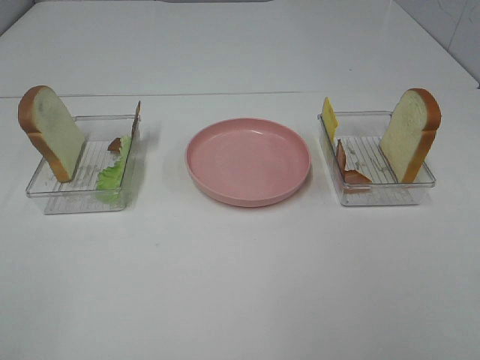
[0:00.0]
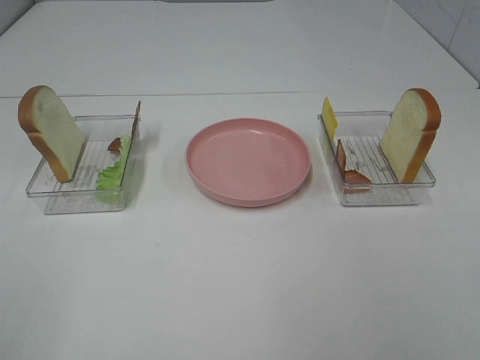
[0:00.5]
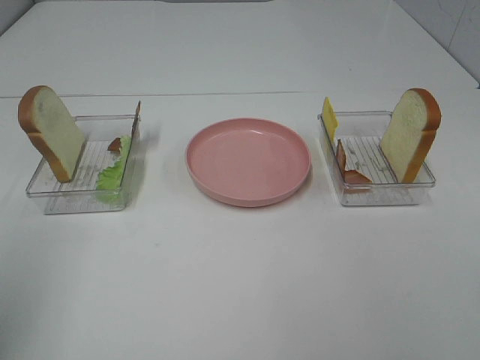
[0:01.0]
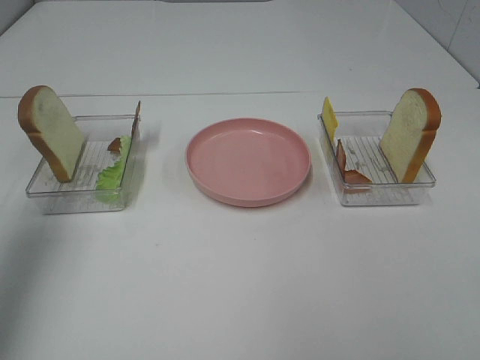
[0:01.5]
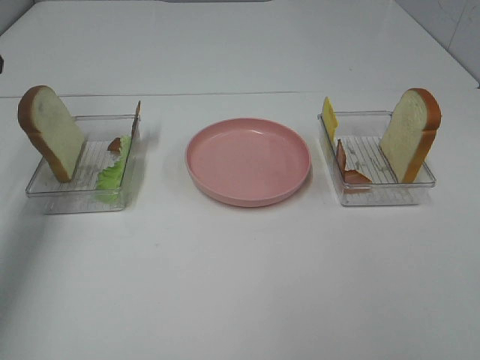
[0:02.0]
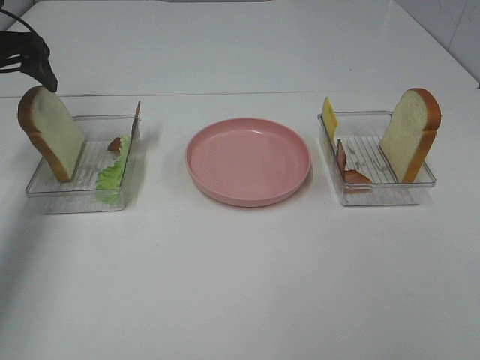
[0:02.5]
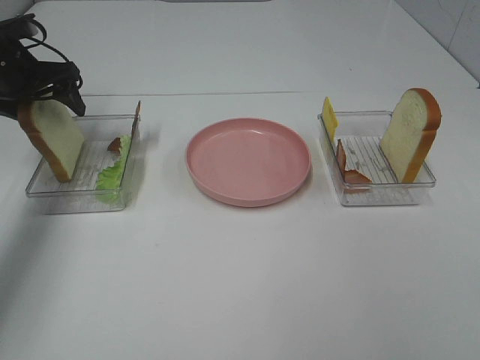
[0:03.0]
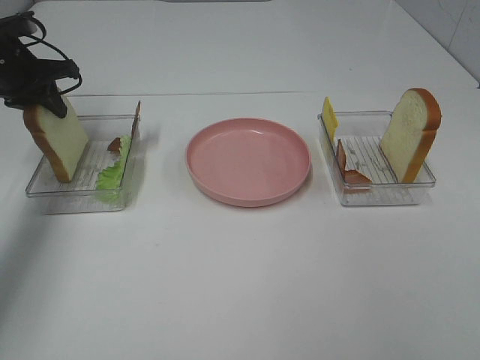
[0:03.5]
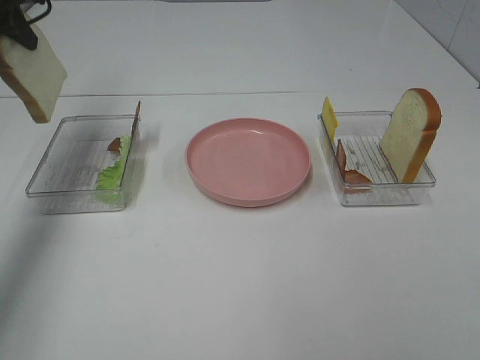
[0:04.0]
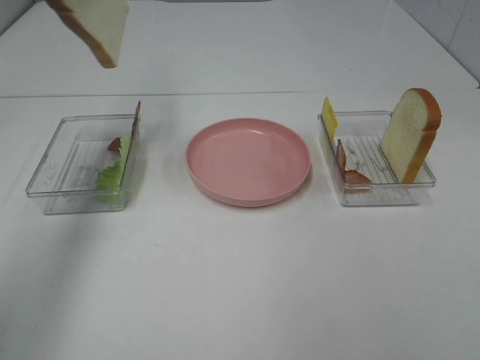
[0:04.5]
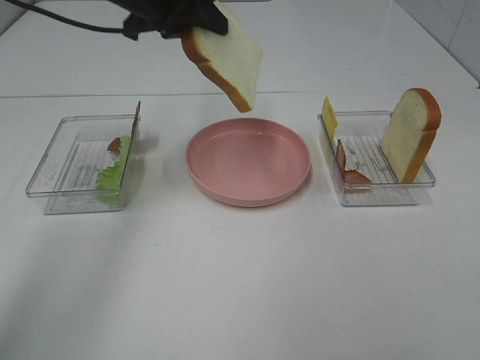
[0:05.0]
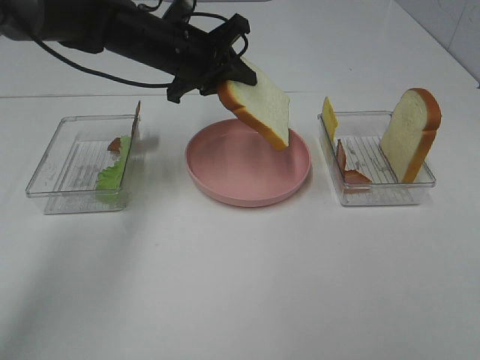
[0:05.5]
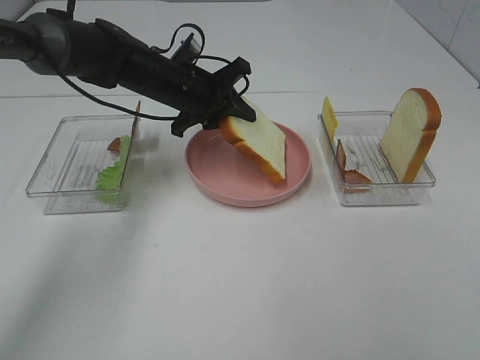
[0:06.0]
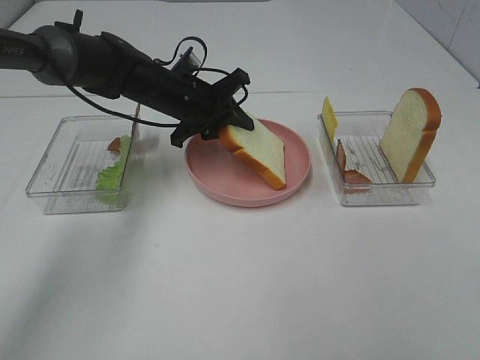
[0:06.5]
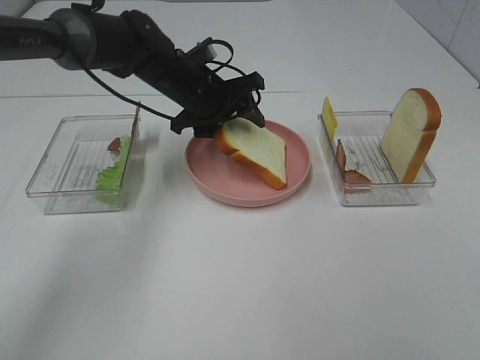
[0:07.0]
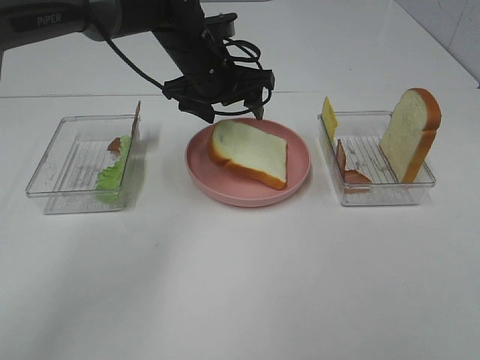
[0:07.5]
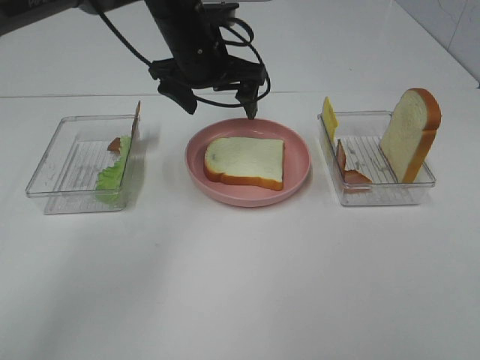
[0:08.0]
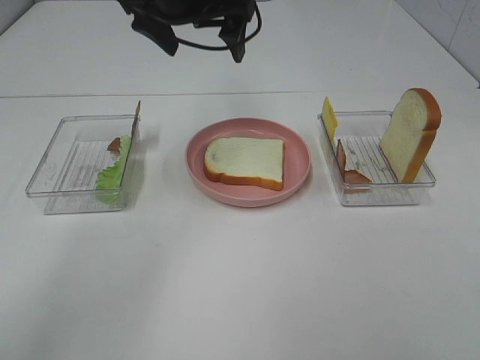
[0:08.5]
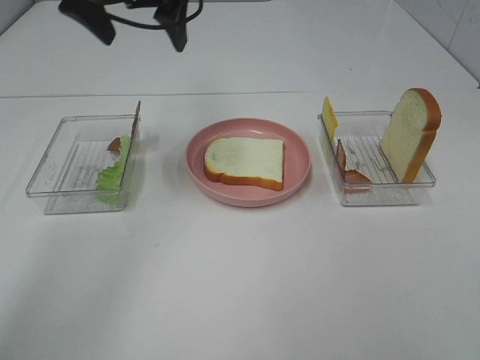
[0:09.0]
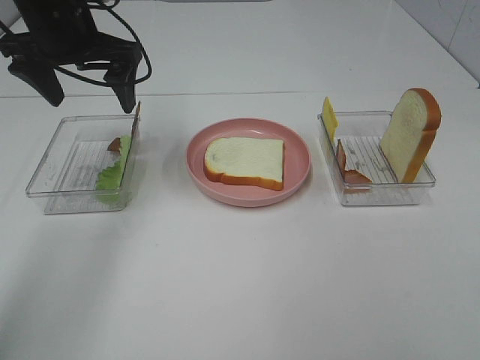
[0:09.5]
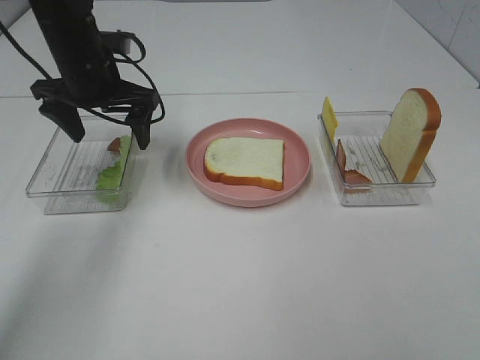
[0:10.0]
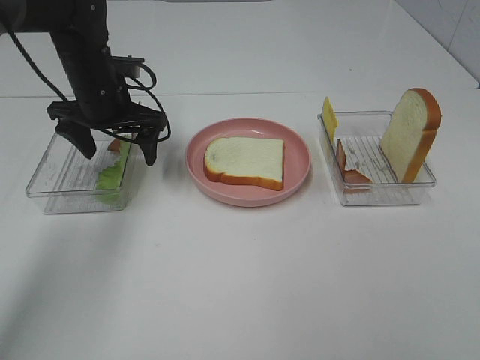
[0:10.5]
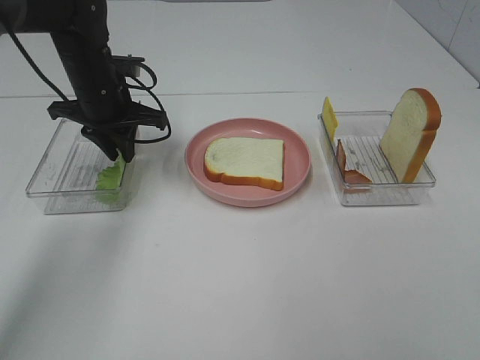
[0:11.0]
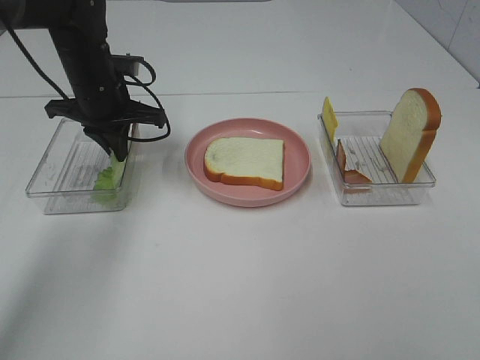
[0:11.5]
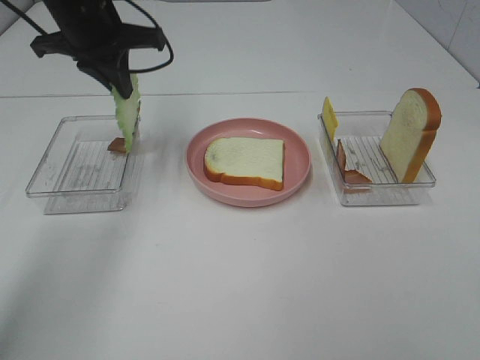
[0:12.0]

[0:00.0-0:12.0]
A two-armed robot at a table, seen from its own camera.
Task of the whole recording: Make sandwiches.
Step, 0:00.0 to 0:03.0: Left hand:grab the bread slice.
Step, 0:03.5 to 0:07.5: Left hand:place the bread slice on the plate.
Step, 0:08.0 to 0:11.5: Left hand:grab the lettuce slice.
0:00.0 to 0:02.0: The left gripper shifts some 35 cm forward.
0:02.0 to 0:04.0: The left gripper moves forward, about 5 cm, moves some 10 cm downward and comes back, and closes its fingers.
0:04.0 to 0:06.0: The left gripper heads to the right and downward, covering about 30 cm.
0:06.0 to 0:08.0: The left gripper goes some 10 cm upward, and opens.
0:08.0 to 0:10.0: The left gripper shifts some 15 cm to the left.
0:10.0 to 0:12.0: The left gripper goes approximately 5 cm upward, and closes up.

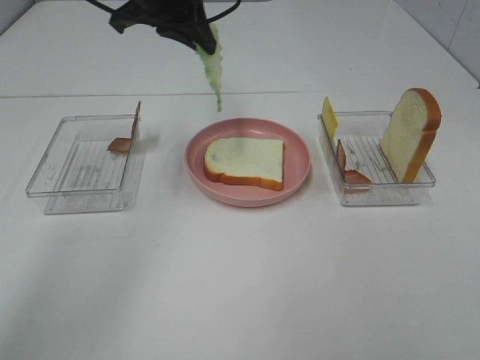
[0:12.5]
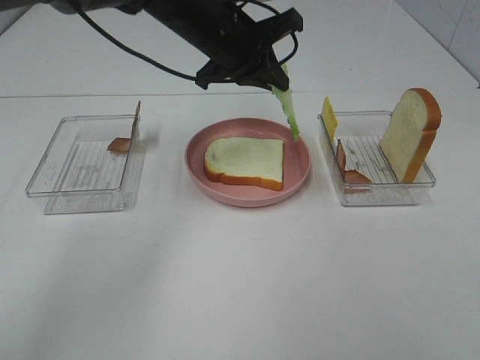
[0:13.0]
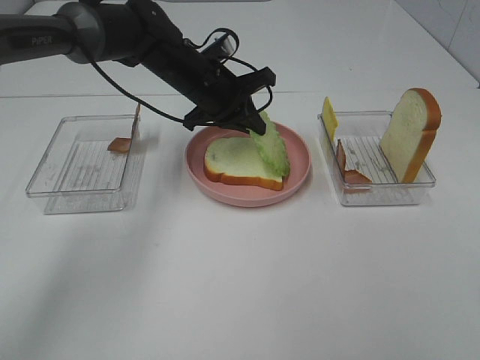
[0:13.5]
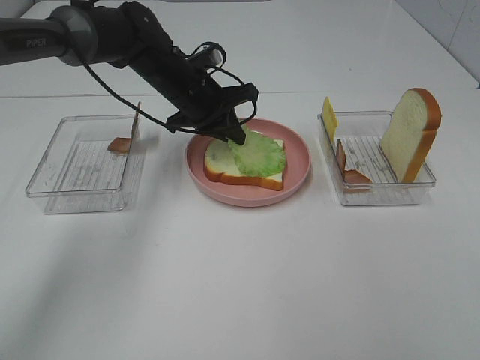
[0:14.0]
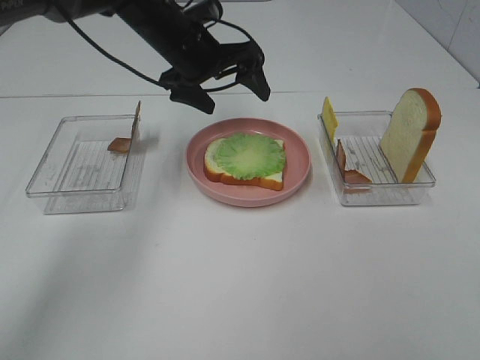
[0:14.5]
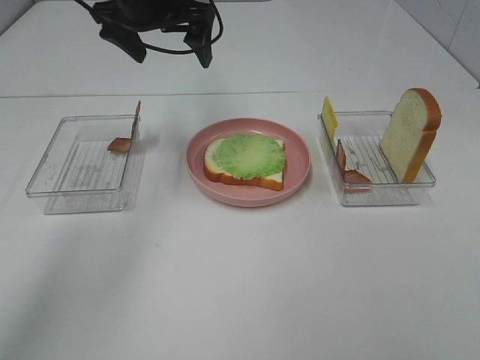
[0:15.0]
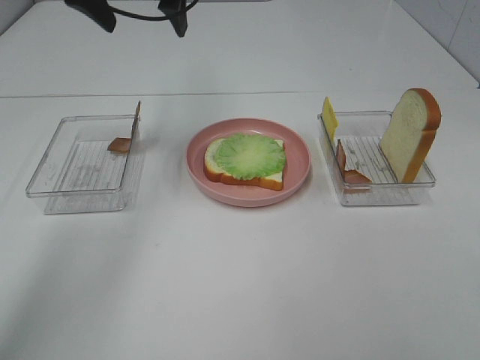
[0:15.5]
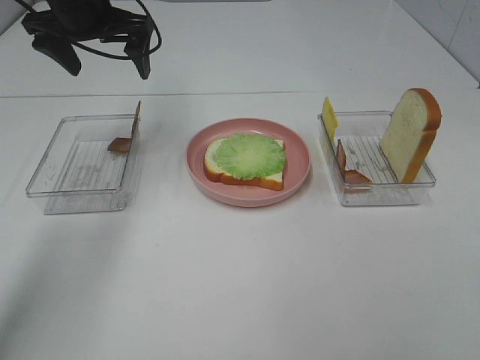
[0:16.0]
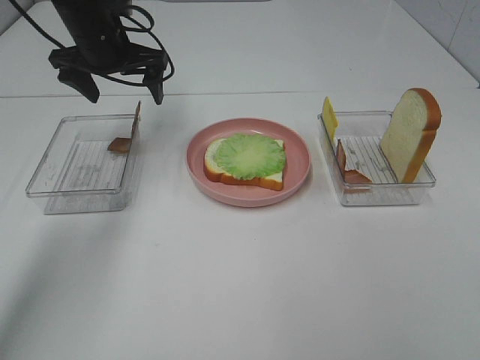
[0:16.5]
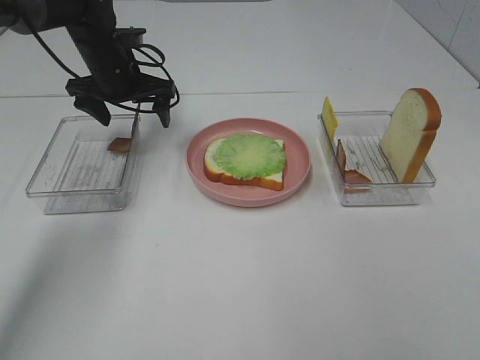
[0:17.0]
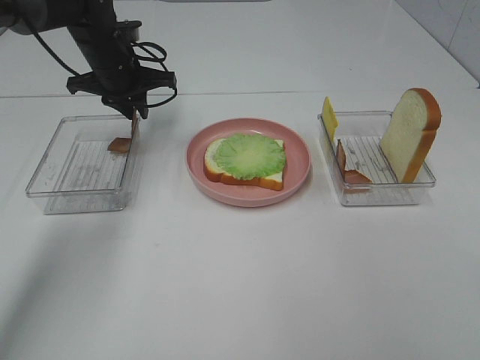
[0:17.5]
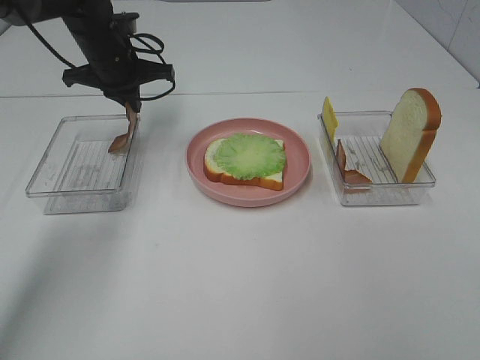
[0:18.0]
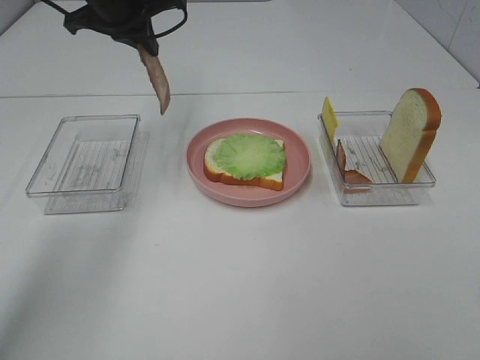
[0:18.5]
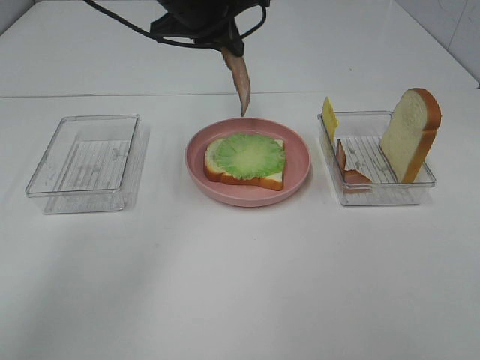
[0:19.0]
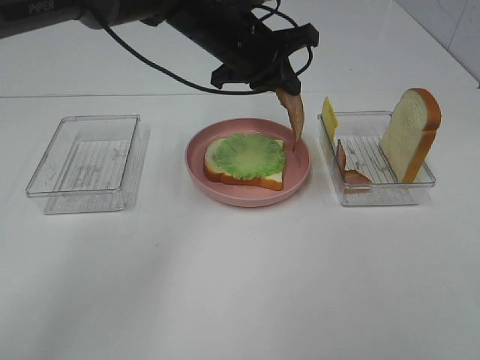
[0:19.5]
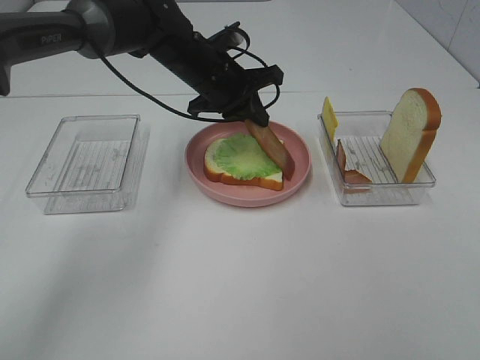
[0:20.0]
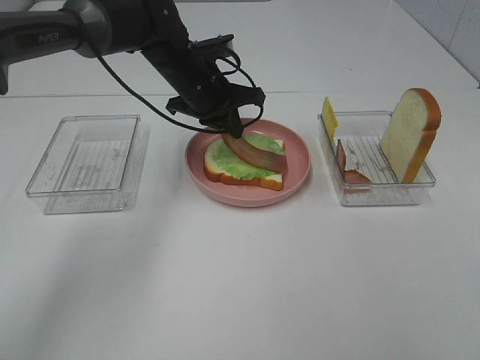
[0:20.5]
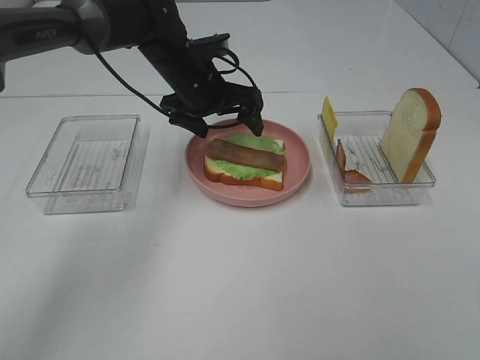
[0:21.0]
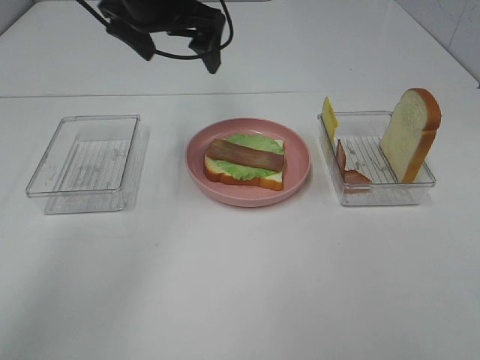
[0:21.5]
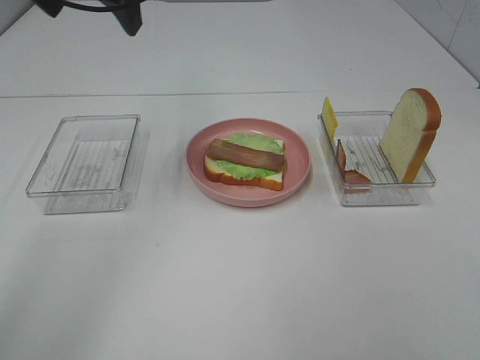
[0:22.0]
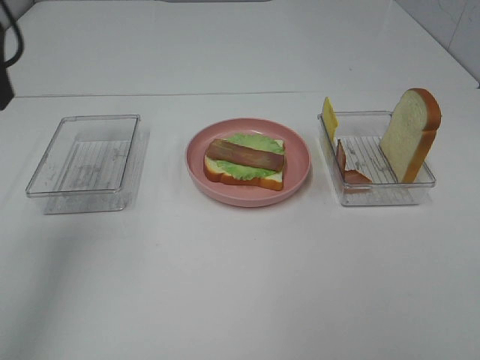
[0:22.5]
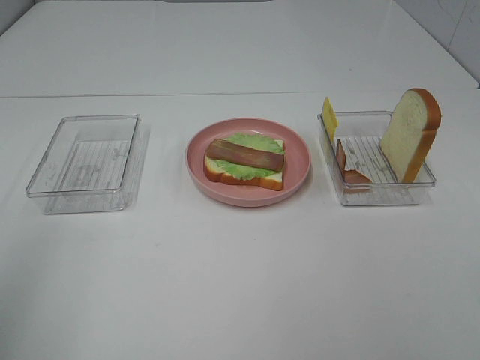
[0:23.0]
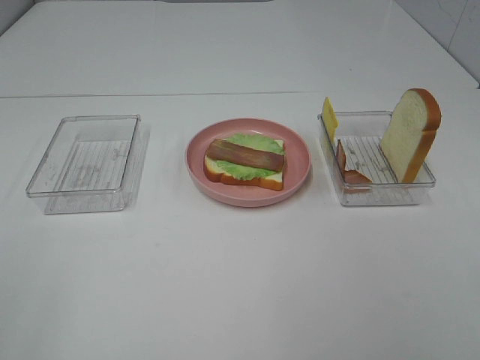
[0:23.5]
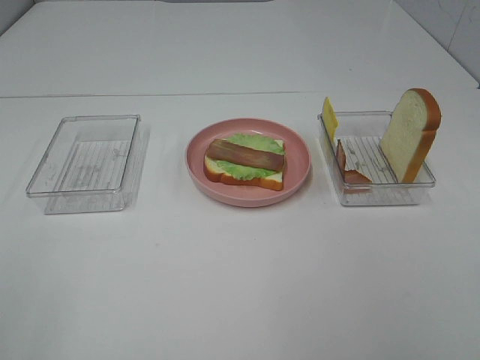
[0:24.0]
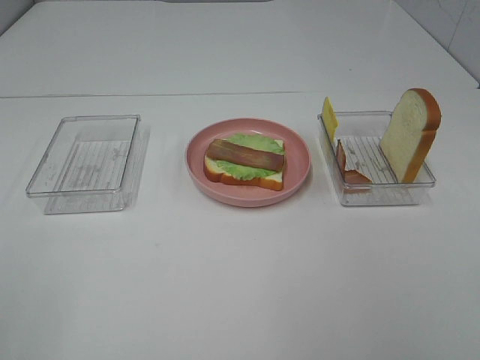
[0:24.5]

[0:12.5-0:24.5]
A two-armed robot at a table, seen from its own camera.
Task of the whole recording: Make sandwiches.
Step, 0:12.5 to 0:14.0: Left hand:place the lettuce slice on the bread slice.
Step, 0:14.5 to 0:17.5: Left hand:grab the bacon.
Step, 0:18.0 to 0:21.0: Left hand:place bacon on lettuce slice.
0:12.5 to 0:14.5: The left gripper moves downward, roughly 10 cm, and opens.
0:14.5 to 0:16.5: The left gripper goes approximately 10 cm to the left, and moves about 10 cm upward and comes back.
0:16.5 to 0:18.5: The left gripper is displaced upward by roughly 5 cm, and closes.
0:18.5 to 0:20.5: The left gripper moves downward and to the right, about 15 cm.
0:20.5 to 0:22.5: The left gripper is displaced backward, to the left and upward by about 35 cm, and opens.
0:22.5 to 0:24.5: The left gripper moves backward, approximately 25 cm.

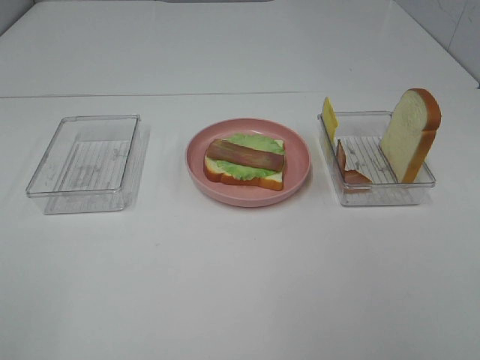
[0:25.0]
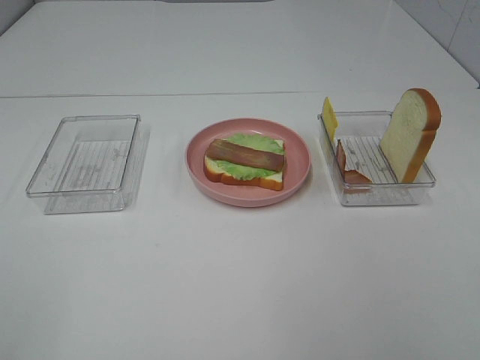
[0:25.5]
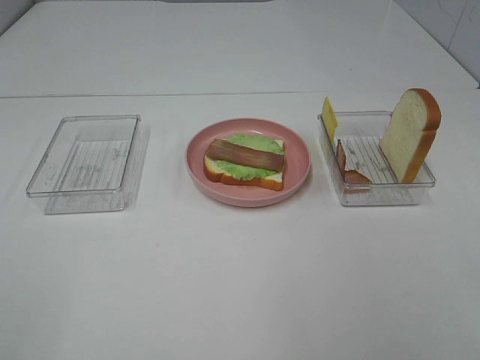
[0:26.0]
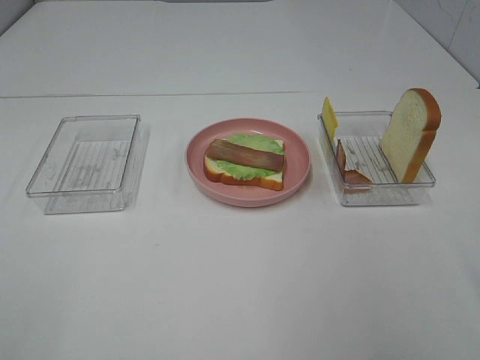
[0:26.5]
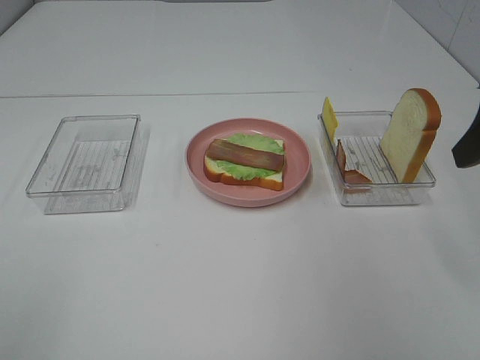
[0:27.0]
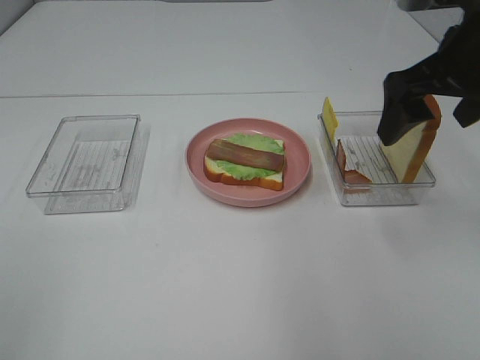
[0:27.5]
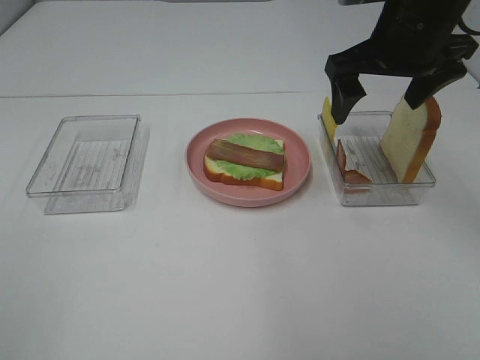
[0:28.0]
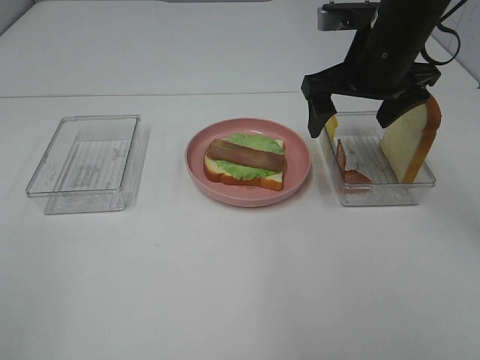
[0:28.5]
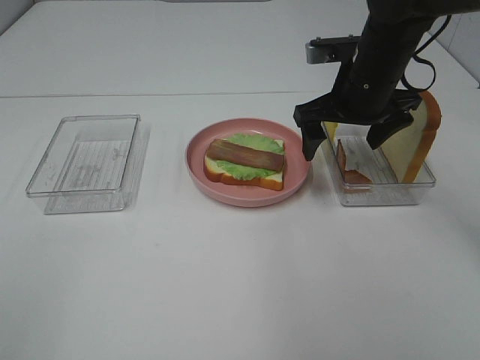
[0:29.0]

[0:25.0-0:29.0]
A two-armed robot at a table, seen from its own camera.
Task of the whole recording: Make sandwiches.
0:27.0 to 0:29.0: The right gripper moves forward, to the left and downward, about 25 cm.
